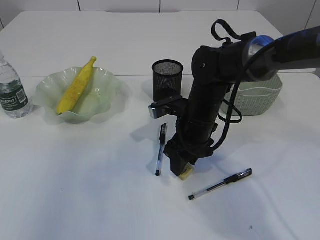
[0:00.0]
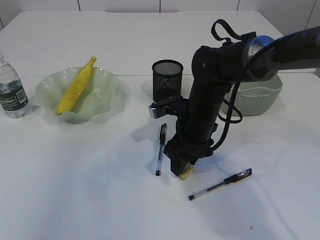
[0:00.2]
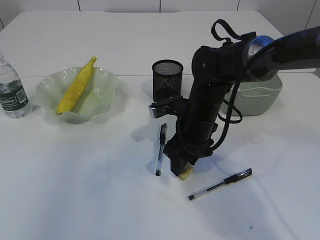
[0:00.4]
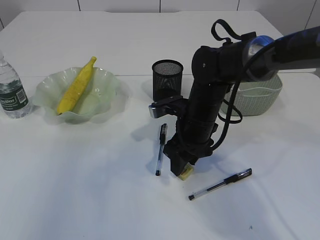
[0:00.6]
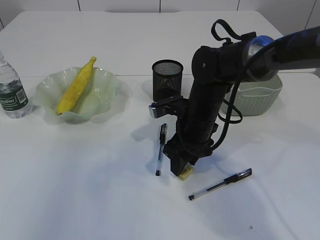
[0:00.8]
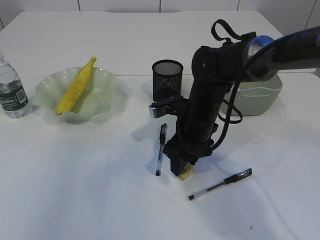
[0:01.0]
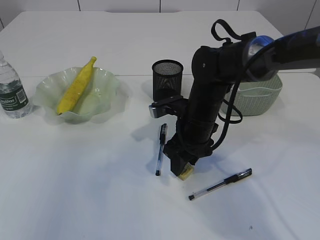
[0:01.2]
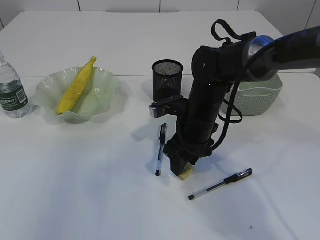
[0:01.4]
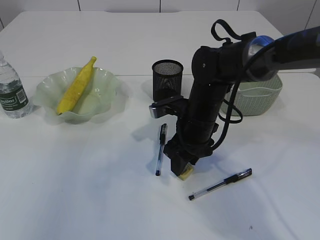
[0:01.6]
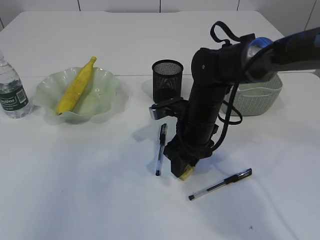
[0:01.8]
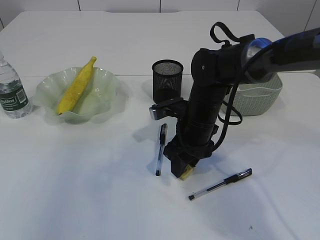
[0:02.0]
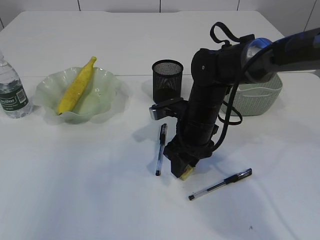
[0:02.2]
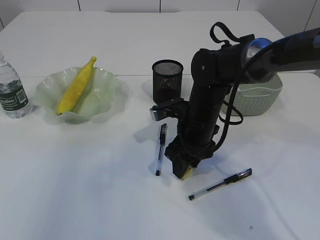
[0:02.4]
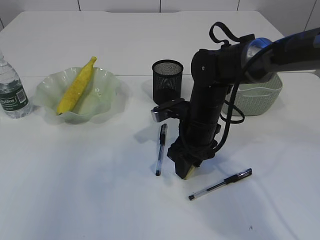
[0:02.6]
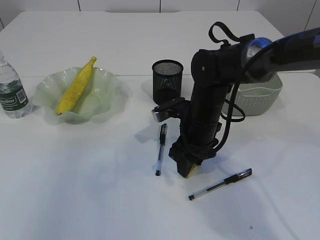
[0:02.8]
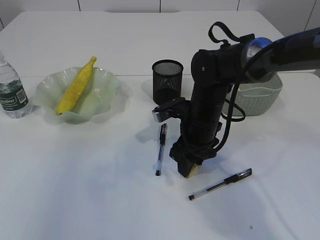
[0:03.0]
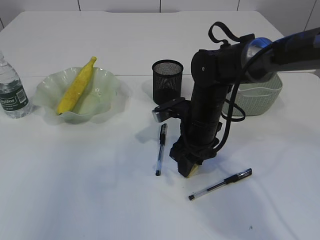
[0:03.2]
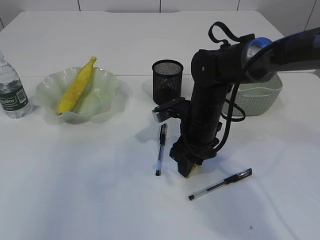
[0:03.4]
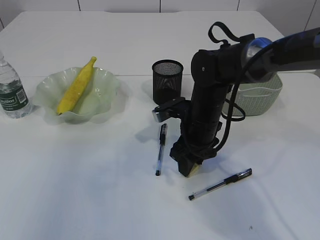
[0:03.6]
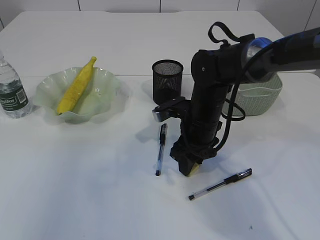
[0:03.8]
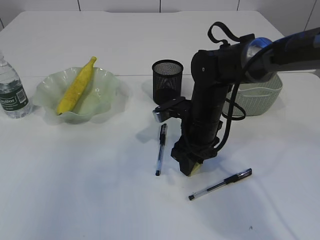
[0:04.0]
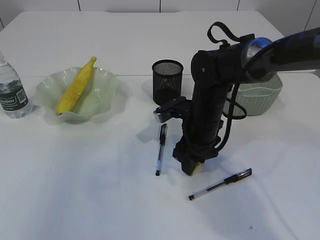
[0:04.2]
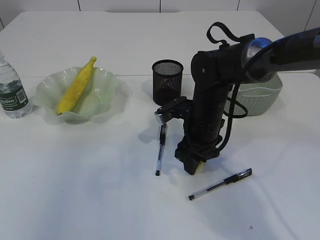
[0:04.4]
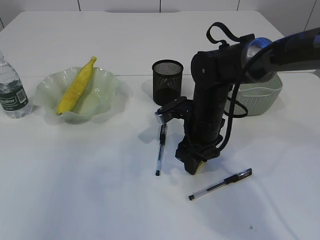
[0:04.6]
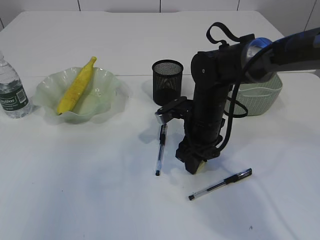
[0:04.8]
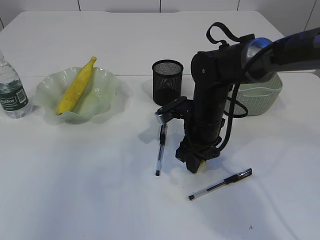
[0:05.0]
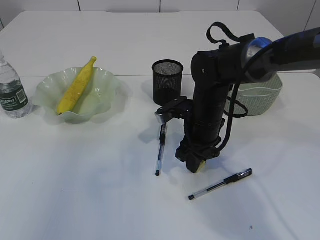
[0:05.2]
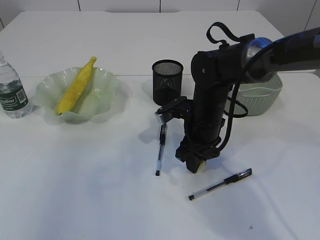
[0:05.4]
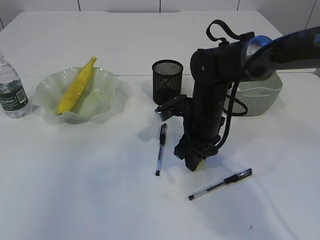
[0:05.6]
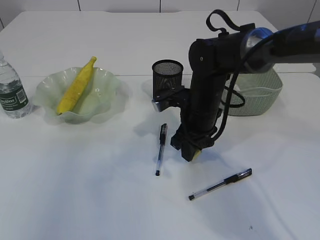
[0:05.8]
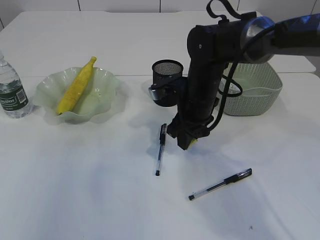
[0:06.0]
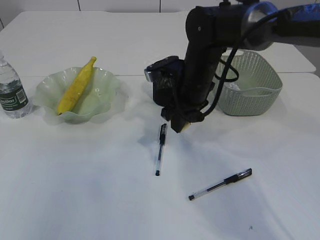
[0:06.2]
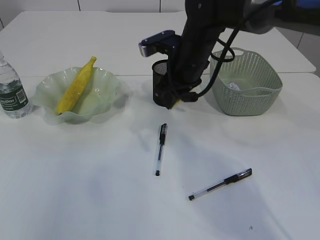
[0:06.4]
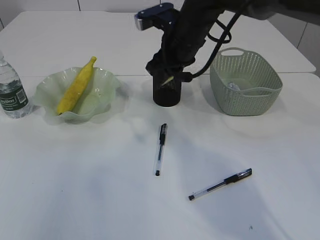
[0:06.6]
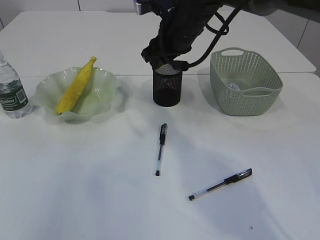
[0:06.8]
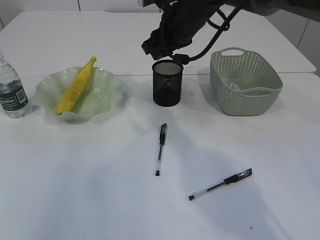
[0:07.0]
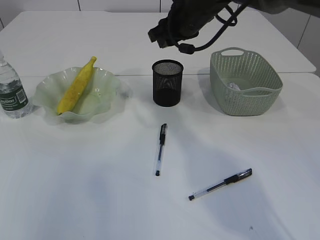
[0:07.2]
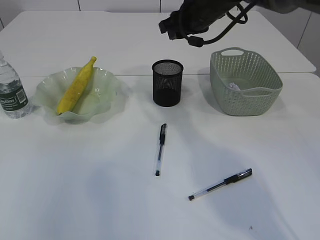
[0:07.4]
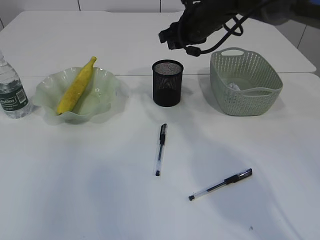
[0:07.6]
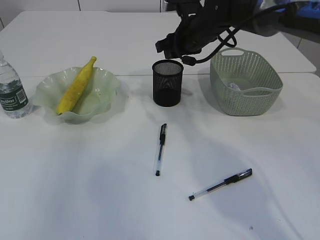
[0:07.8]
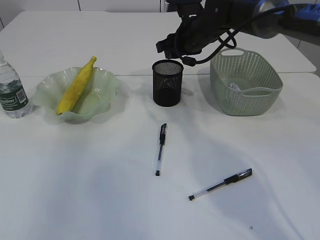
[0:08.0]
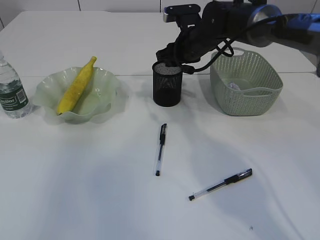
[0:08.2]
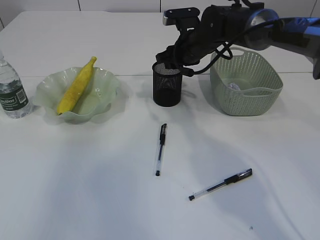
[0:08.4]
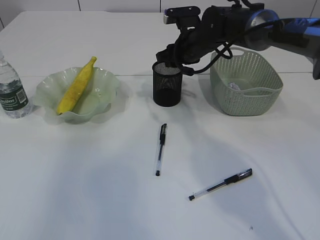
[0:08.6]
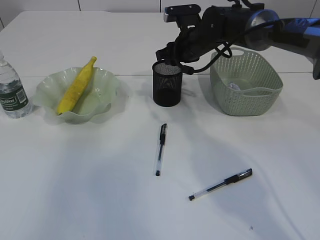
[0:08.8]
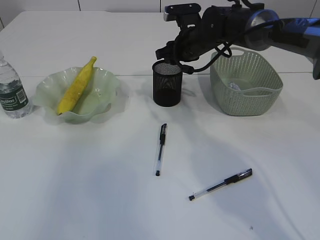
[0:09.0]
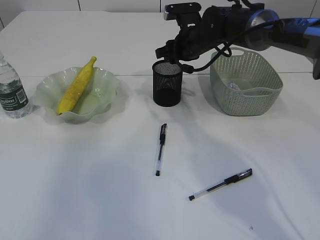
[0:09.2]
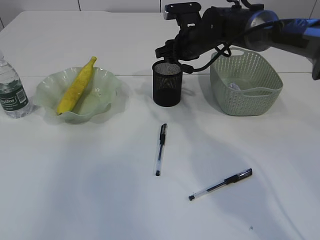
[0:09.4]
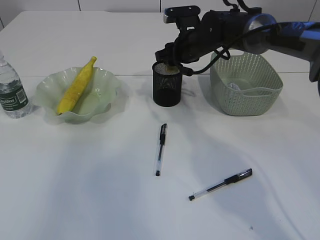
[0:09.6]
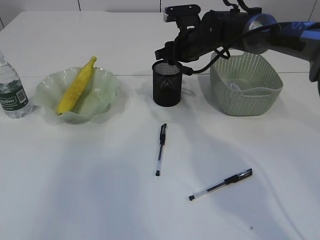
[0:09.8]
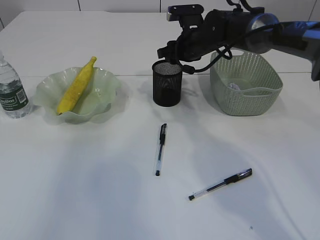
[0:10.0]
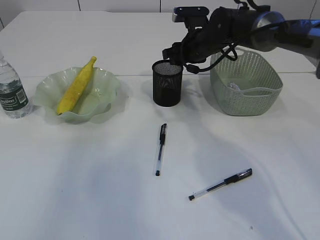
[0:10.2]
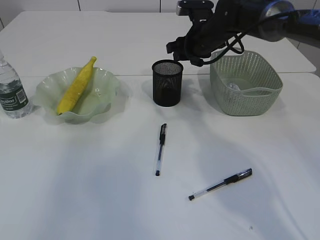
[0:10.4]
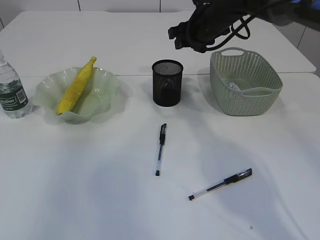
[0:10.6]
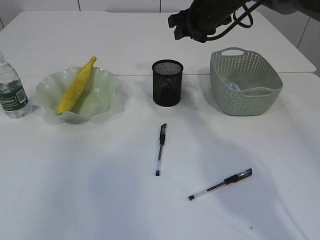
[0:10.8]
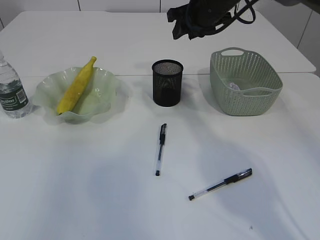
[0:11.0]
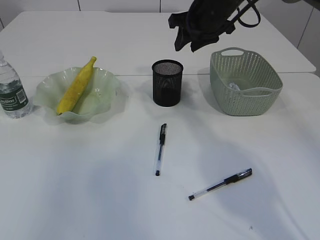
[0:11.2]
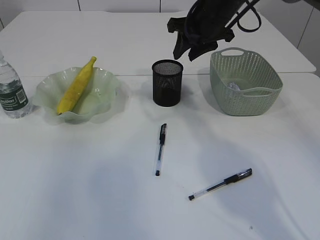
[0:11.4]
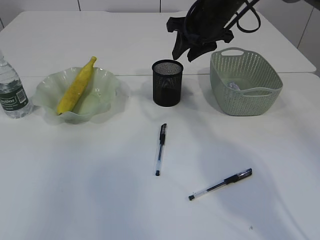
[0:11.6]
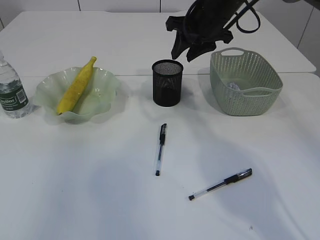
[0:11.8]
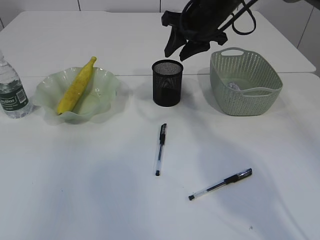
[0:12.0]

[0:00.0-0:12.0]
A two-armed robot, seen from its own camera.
Step, 0:00.0 to 0:06.0: Pick up the eraser.
Step, 0:06.2 to 0:10.0: Place the eraser into the pen holder.
0:00.0 to 0:03.0: Both grippers stay about where they are.
0:03.0 to 0:04.4: Neither gripper changes place.
0:04.4 to 0:06.0: The grippers move only a little.
0:06.0 to 0:07.6: The right gripper goes some 15 cm forward and upward.
0:07.6 to 0:09.0: The right gripper shifts some 5 cm downward.
0:09.0 to 0:10.4: There are only small adjustments of the grippers.
0:10.4 to 0:12.0: The right gripper heads upward, covering about 5 cm.

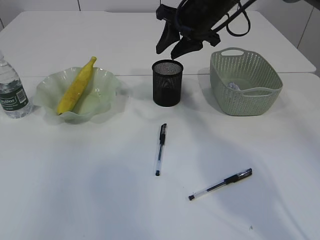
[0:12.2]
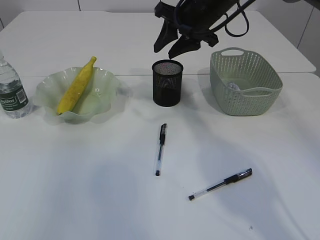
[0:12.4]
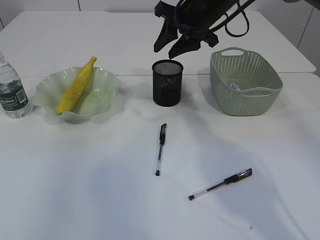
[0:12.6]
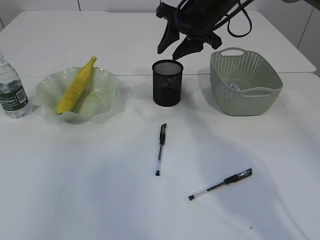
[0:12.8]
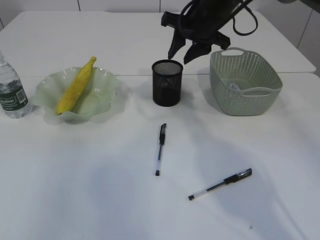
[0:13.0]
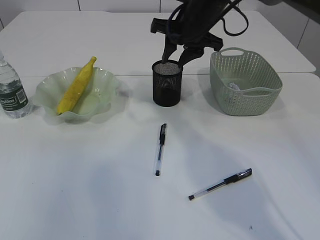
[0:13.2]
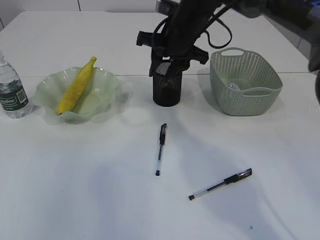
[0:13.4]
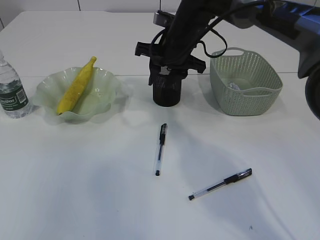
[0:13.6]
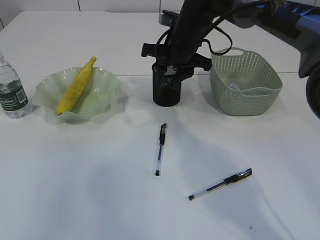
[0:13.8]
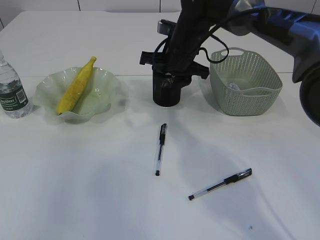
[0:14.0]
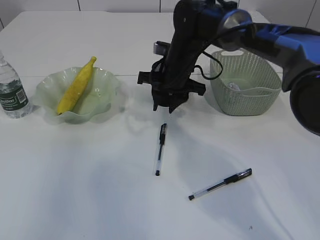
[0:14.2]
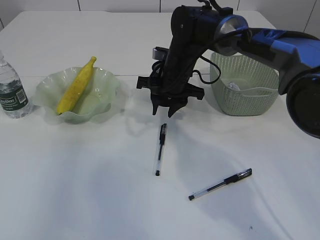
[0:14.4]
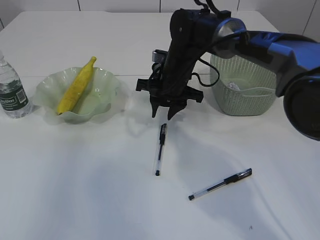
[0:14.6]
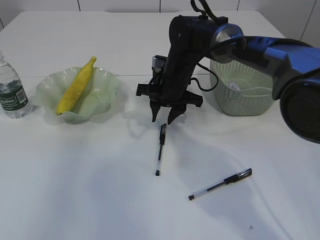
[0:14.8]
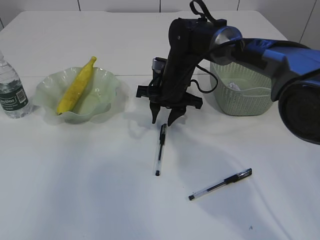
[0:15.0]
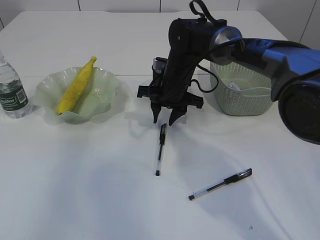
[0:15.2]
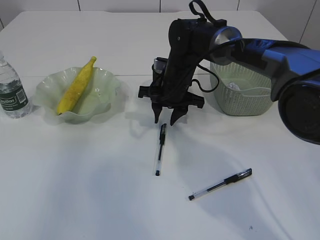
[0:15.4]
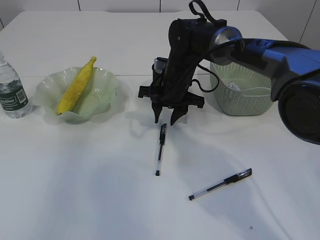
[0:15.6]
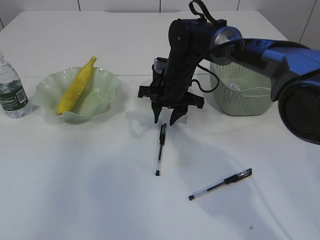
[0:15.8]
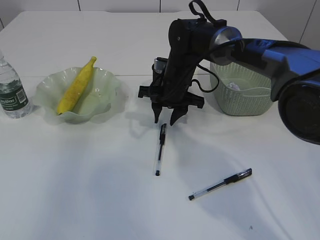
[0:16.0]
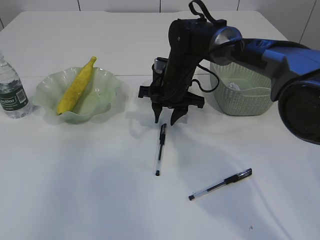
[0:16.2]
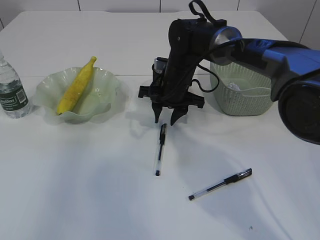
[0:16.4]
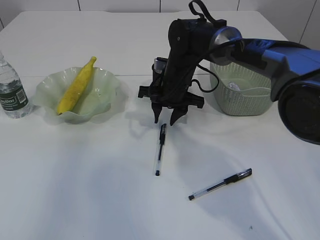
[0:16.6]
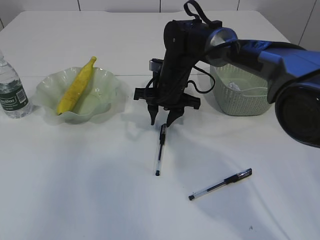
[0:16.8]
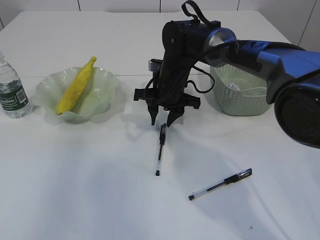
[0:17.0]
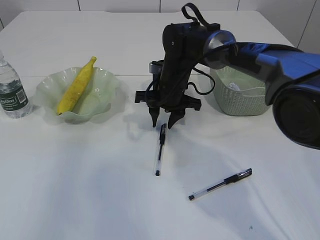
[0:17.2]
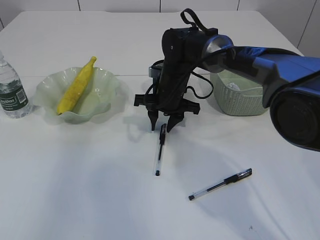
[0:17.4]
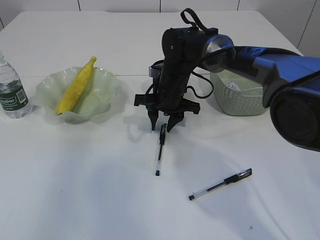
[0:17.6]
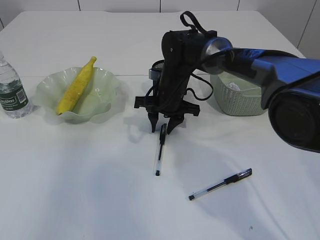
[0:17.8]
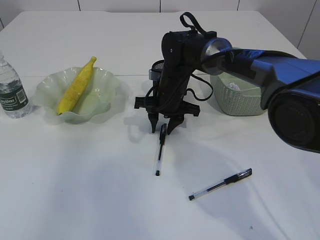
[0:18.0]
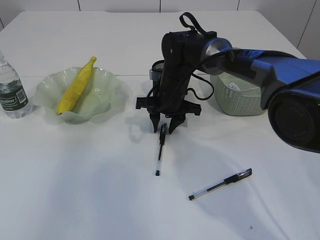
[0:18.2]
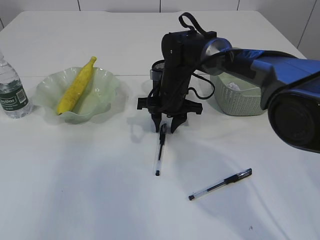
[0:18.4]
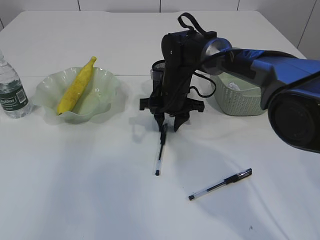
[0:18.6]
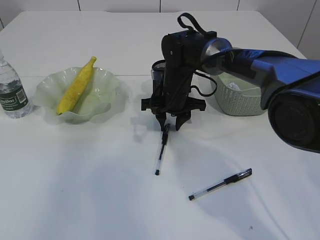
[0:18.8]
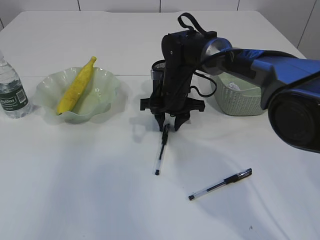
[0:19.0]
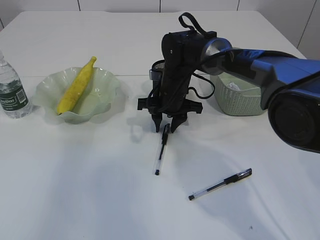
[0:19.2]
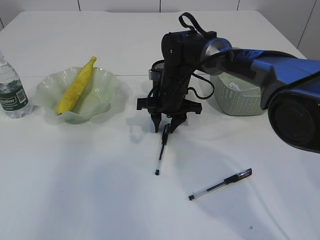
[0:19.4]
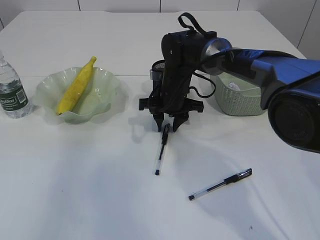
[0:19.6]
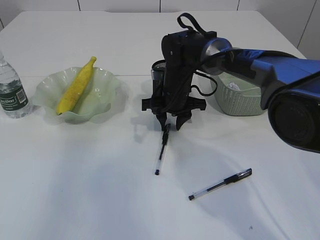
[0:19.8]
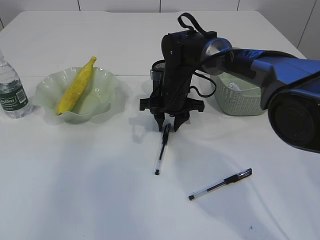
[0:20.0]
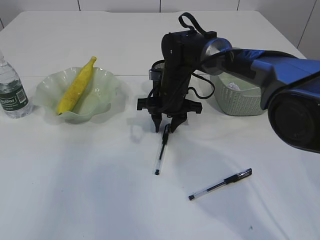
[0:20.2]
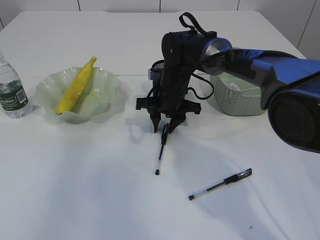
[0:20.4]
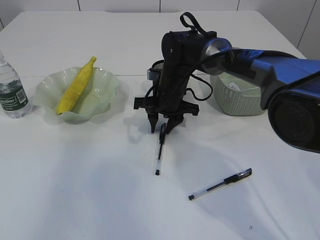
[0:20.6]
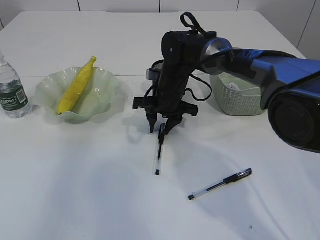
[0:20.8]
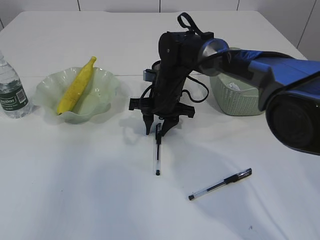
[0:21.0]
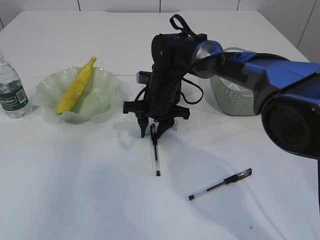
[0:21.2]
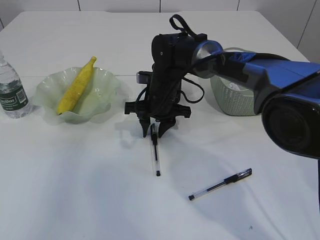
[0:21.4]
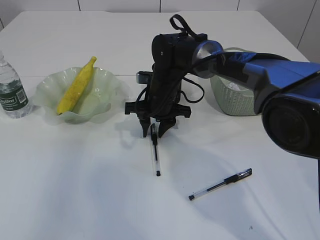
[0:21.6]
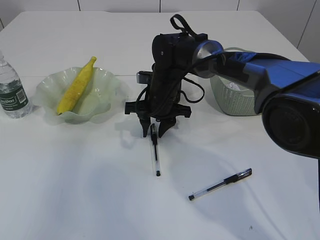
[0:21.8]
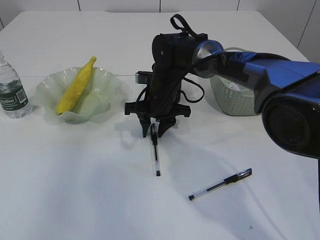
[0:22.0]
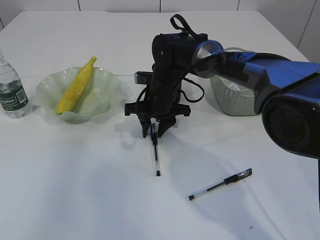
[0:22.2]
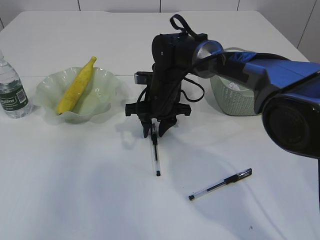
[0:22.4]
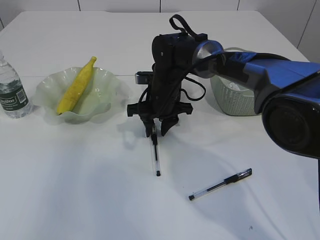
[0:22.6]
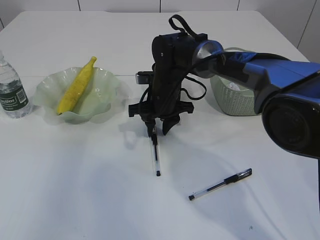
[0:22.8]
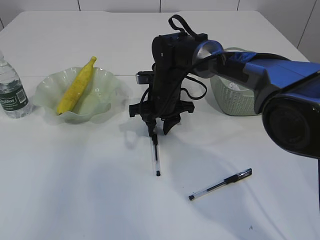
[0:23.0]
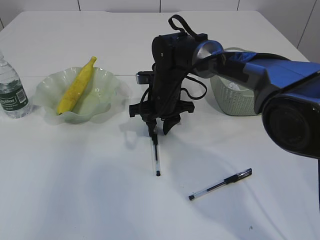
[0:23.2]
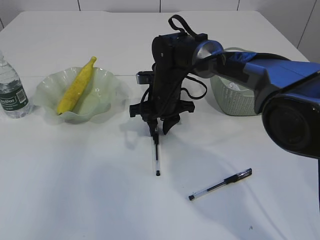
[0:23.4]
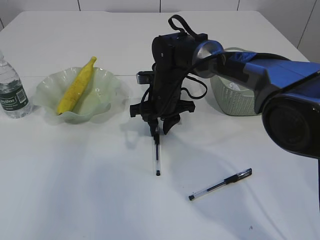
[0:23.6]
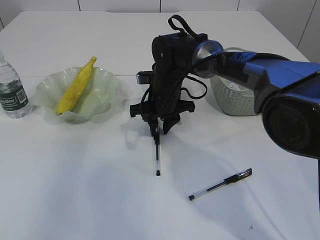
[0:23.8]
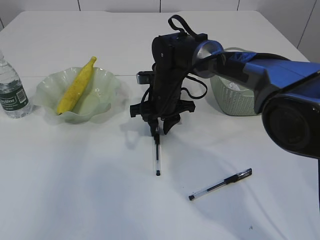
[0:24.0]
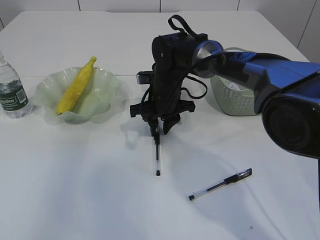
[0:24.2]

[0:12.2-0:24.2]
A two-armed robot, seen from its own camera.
0:12.2 to 0:13.8: The right gripper shifts roughly 5 cm downward.
0:13.8 to 0:15.2: The right gripper is displaced downward by roughly 10 cm.
0:15.2 to 0:16.6: Both grippers stay put.
0:16.6 to 0:22.6: The grippers make only small movements.
0:22.6 to 0:24.2: Both grippers stay about where they are.
